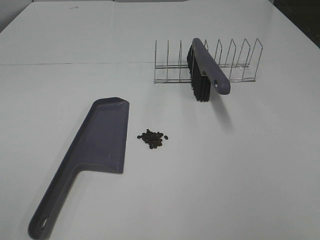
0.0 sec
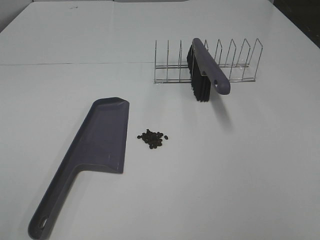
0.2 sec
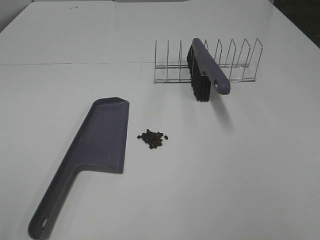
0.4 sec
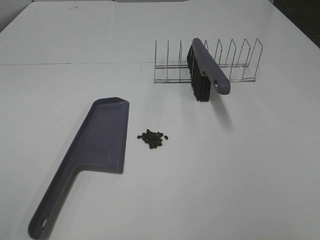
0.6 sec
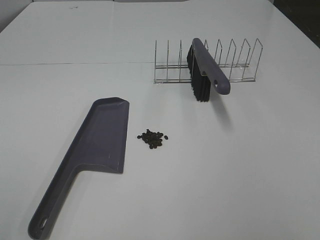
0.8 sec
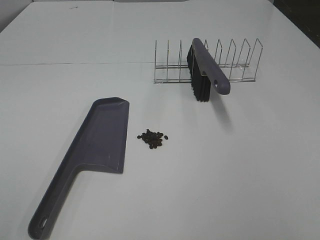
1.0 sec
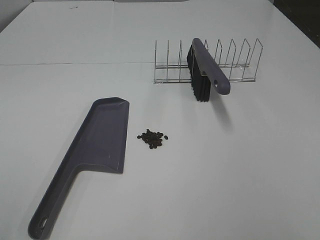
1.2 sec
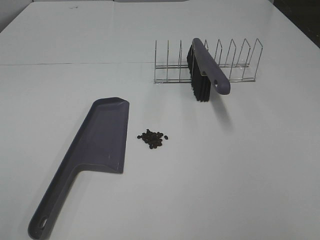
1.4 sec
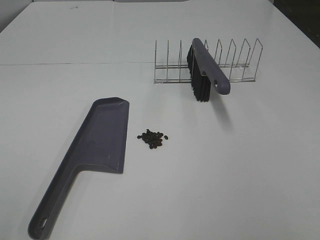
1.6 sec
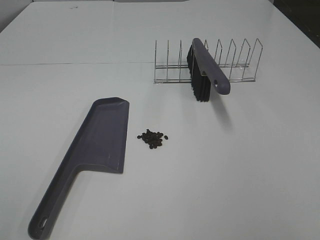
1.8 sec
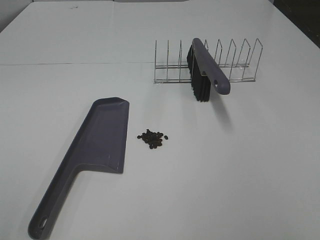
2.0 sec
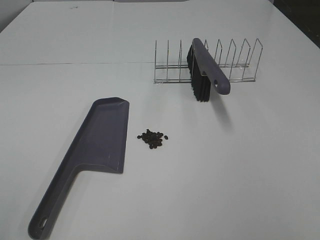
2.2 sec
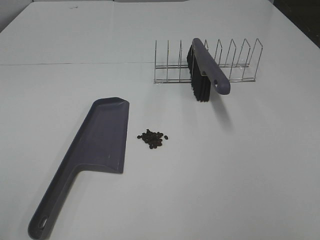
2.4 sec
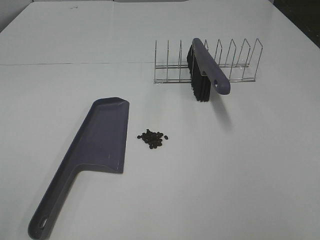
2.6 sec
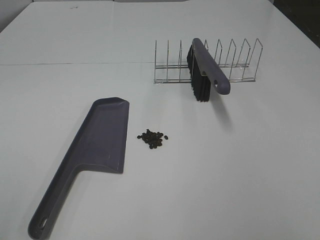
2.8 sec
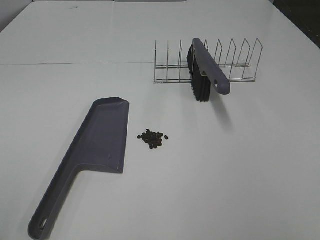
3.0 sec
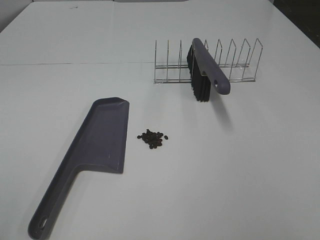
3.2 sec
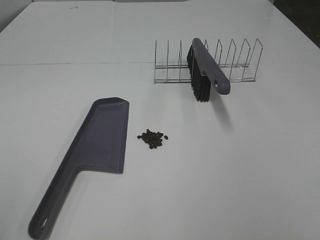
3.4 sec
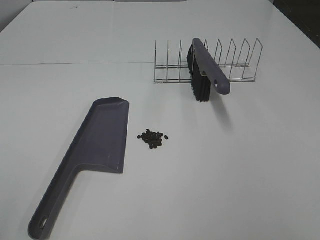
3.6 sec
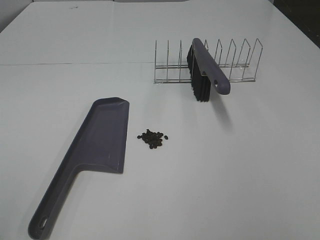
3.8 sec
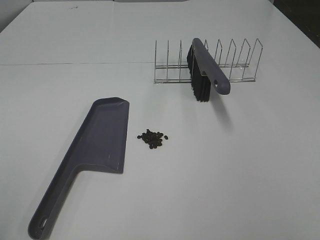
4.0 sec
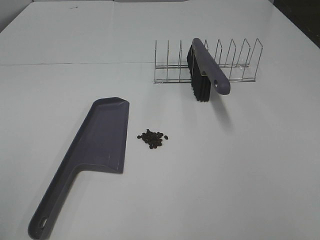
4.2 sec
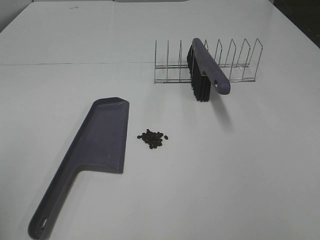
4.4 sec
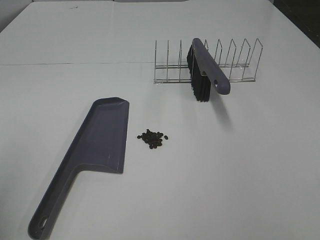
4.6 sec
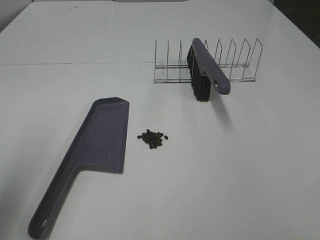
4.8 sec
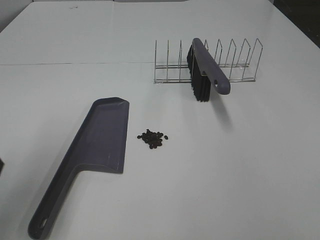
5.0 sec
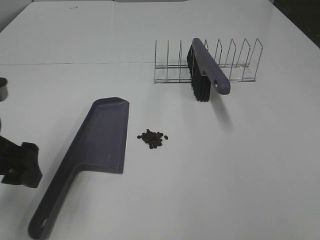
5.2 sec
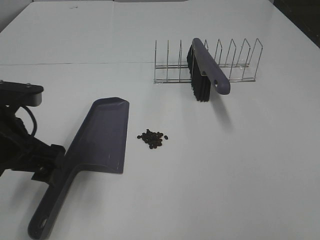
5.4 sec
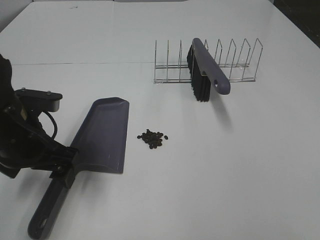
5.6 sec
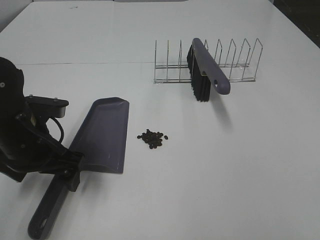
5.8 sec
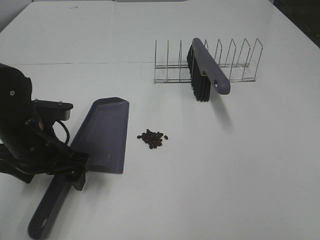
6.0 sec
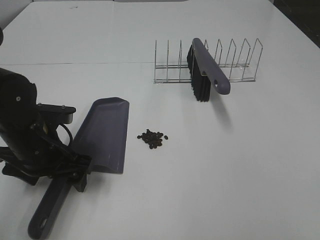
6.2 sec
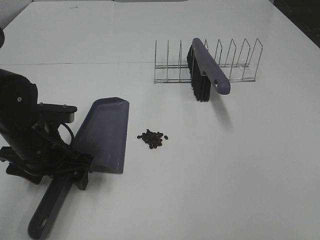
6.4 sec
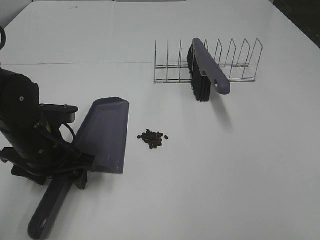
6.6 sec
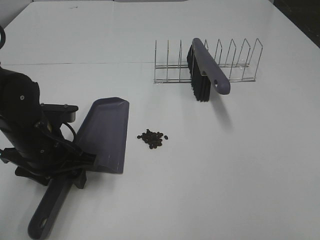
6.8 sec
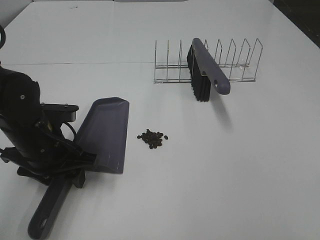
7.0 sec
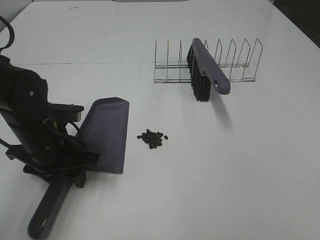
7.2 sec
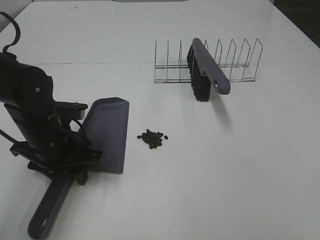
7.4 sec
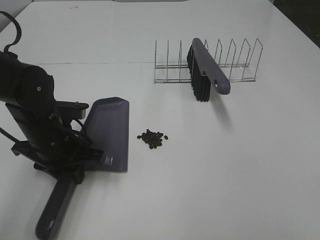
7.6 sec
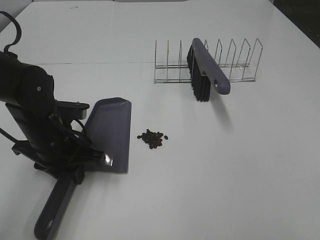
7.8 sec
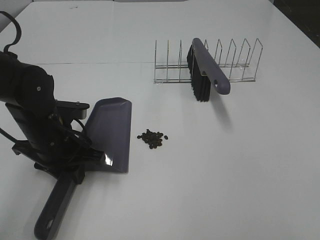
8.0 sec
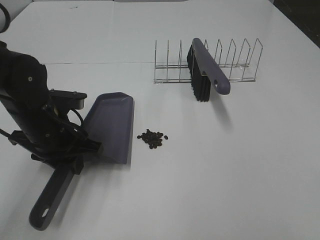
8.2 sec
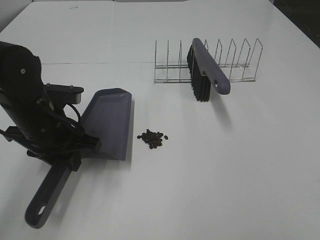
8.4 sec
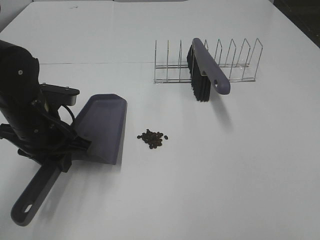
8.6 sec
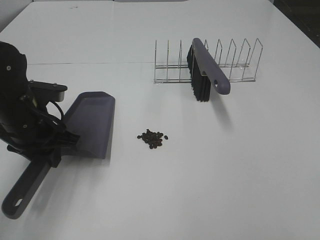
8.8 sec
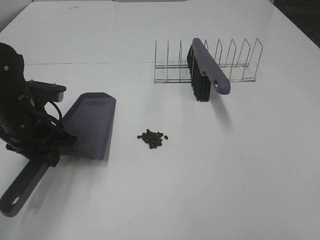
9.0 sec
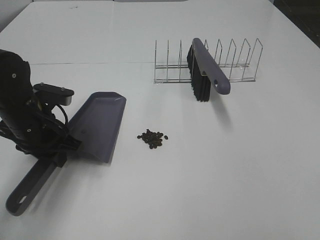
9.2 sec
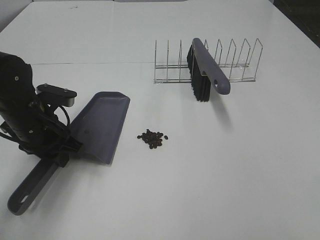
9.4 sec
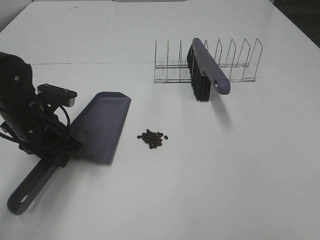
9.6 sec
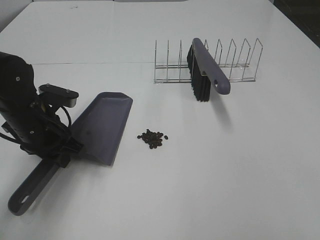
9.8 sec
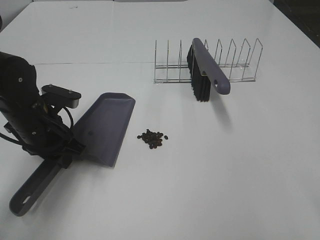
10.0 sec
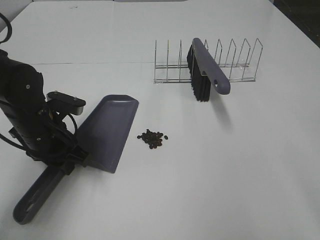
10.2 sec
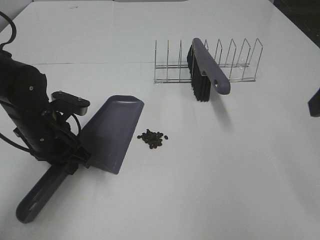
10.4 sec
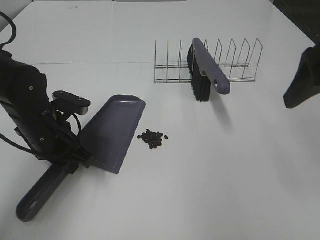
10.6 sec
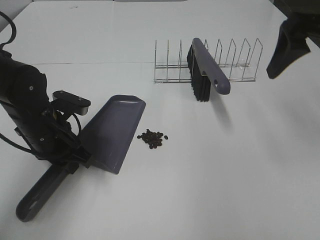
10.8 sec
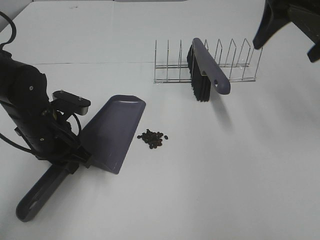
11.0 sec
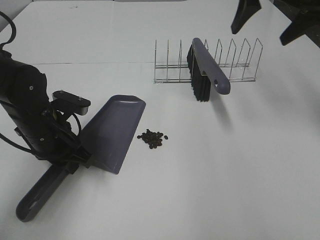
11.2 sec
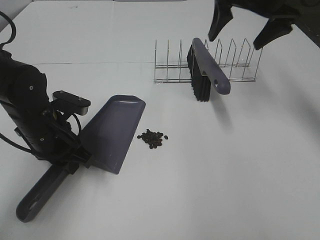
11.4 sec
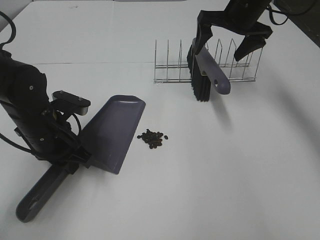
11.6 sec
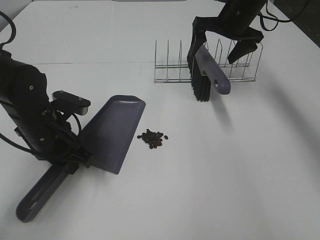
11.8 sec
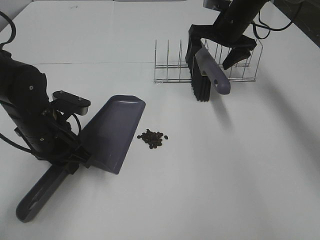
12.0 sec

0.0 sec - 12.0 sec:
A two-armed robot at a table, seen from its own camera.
Task of the whole recording: Sweep Coffee Bean.
Step, 0.0 sec - 7.6 sec: Left hand: grab the dustpan.
0.0 sec - 3.0 sec: Both grippers stay put.
4.4 sec - 6.0 sec: The left gripper moves downward, forward and to the right, roughly 30 cm.
6.0 sec - 7.6 sec: The left gripper closes its fingers.
7.6 sec - 9.0 sec: The grippers move only a little.
9.0 sec - 10.4 sec: The right gripper shifts some 20 cm forward, and opens its fingers.
10.4 sec - 12.0 sec: The right gripper heads forward, covering about 35 cm.

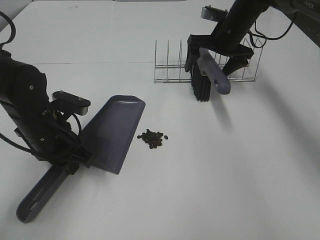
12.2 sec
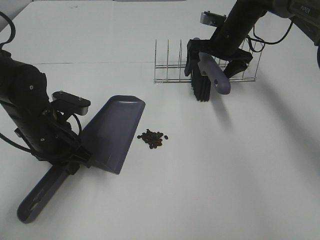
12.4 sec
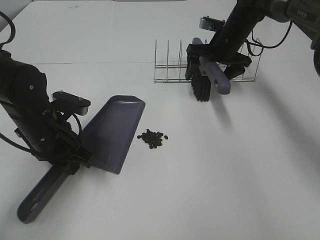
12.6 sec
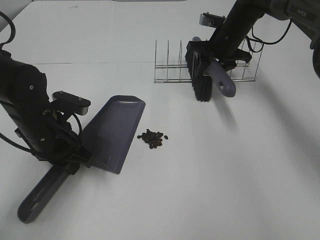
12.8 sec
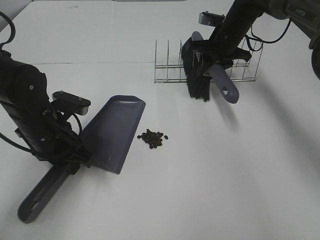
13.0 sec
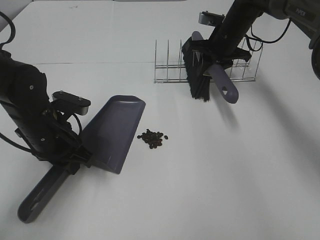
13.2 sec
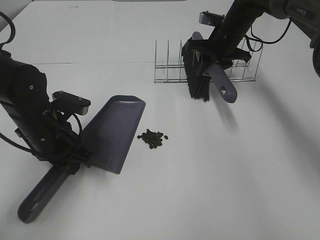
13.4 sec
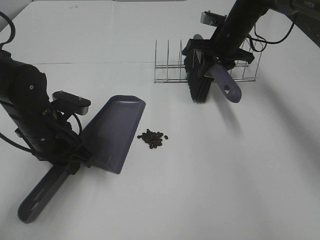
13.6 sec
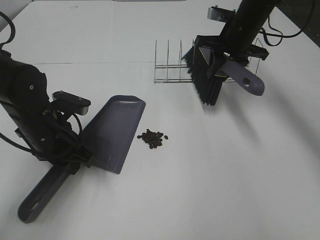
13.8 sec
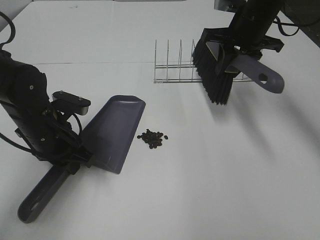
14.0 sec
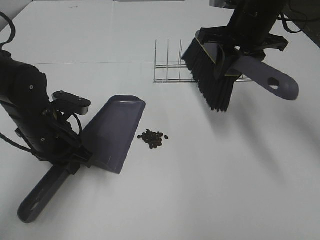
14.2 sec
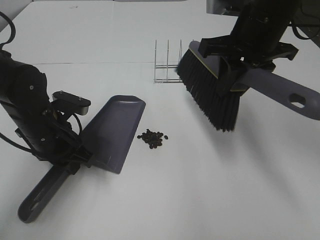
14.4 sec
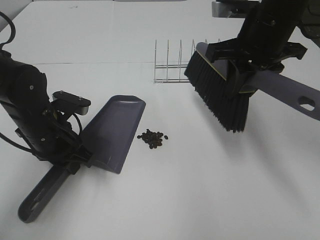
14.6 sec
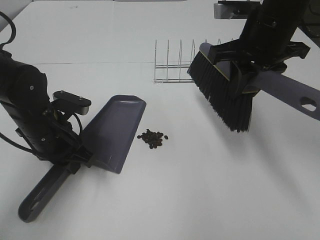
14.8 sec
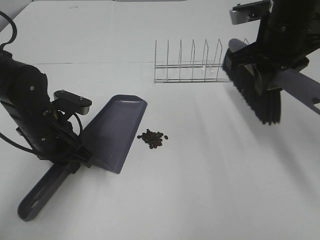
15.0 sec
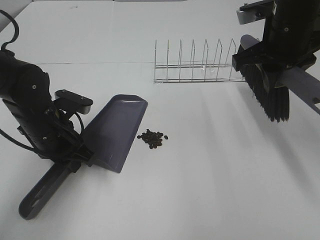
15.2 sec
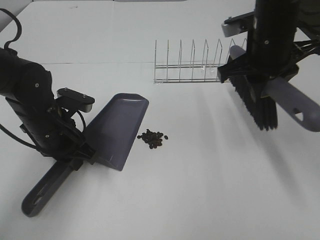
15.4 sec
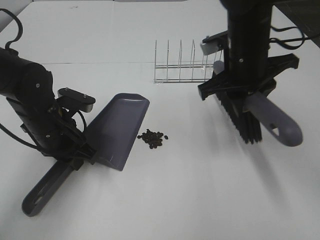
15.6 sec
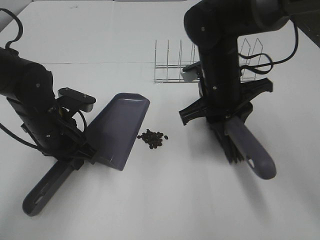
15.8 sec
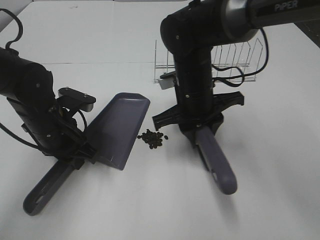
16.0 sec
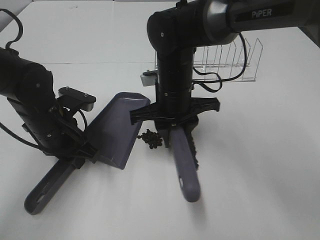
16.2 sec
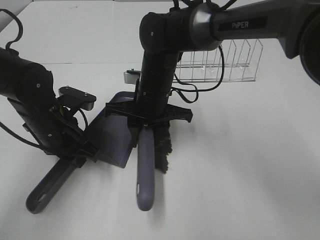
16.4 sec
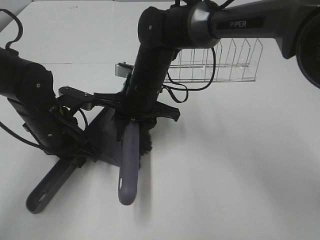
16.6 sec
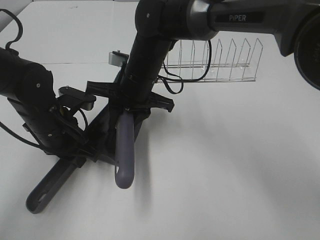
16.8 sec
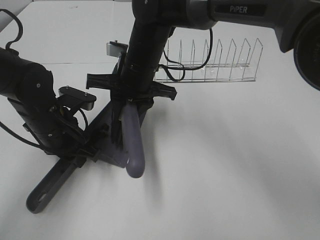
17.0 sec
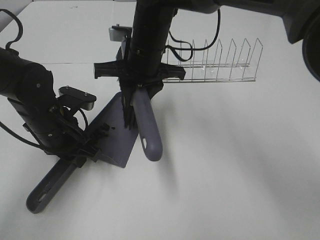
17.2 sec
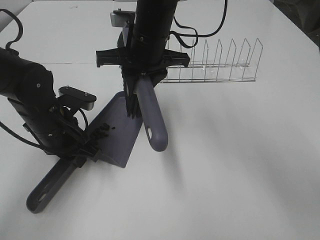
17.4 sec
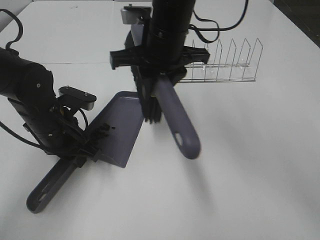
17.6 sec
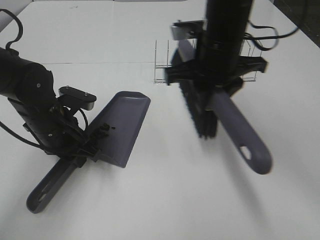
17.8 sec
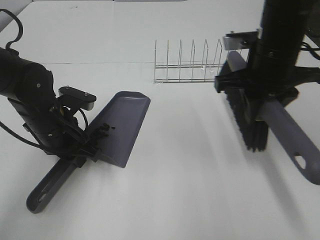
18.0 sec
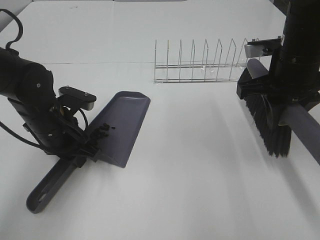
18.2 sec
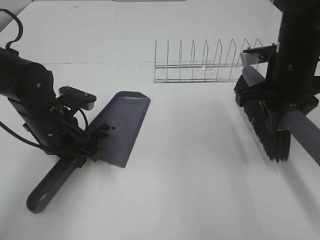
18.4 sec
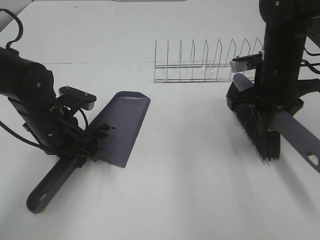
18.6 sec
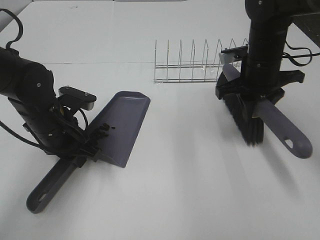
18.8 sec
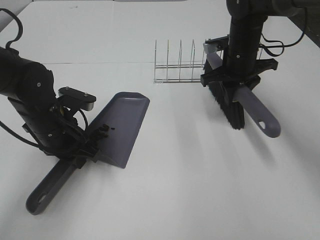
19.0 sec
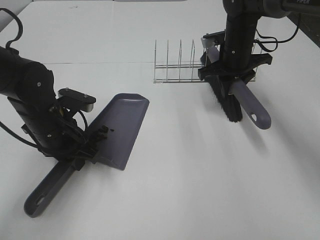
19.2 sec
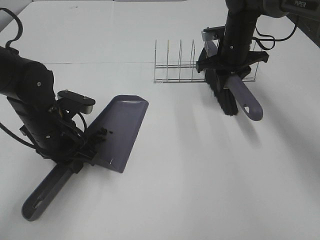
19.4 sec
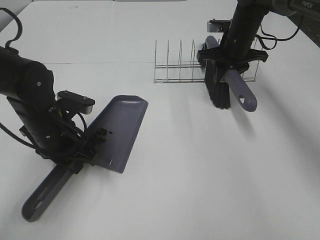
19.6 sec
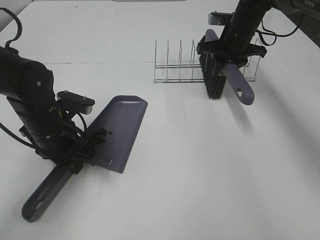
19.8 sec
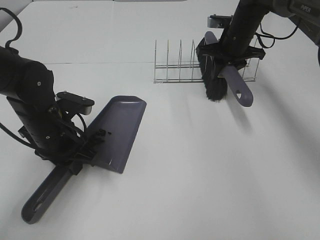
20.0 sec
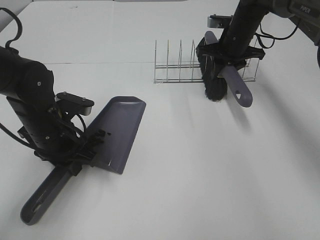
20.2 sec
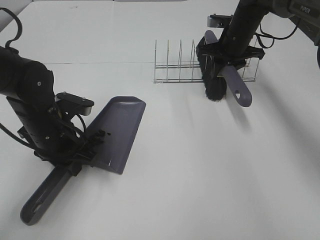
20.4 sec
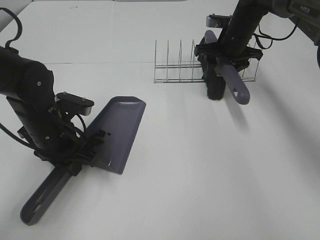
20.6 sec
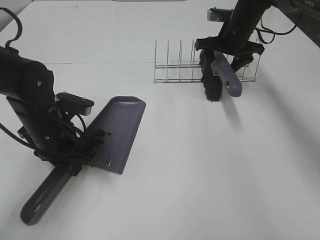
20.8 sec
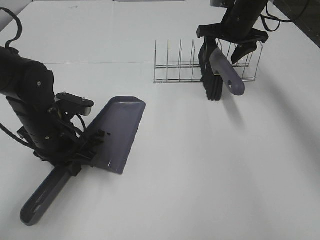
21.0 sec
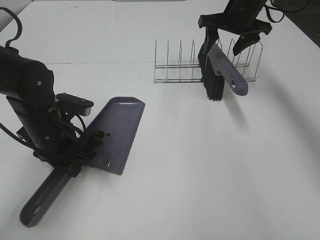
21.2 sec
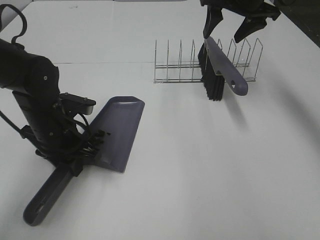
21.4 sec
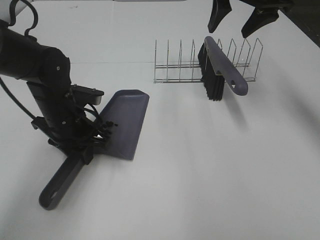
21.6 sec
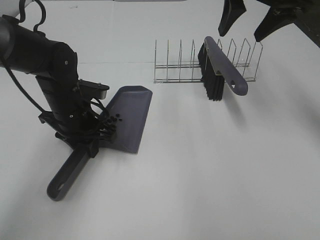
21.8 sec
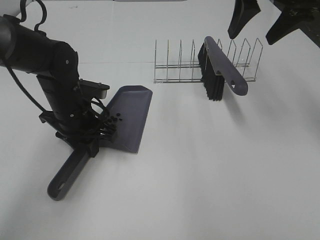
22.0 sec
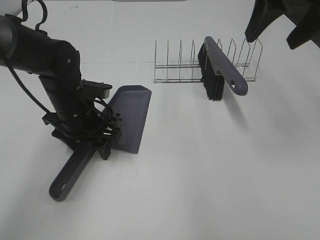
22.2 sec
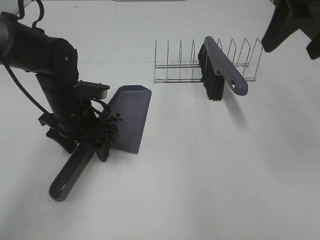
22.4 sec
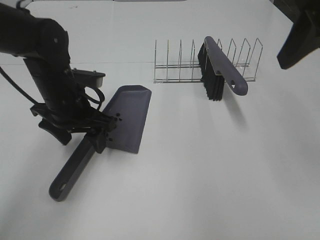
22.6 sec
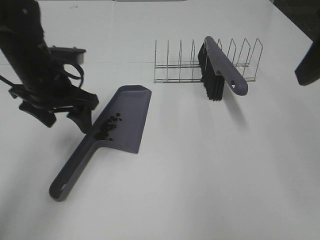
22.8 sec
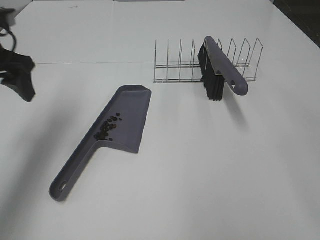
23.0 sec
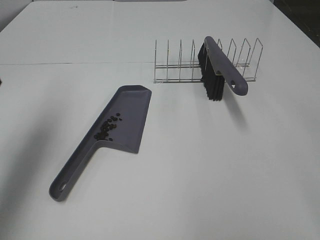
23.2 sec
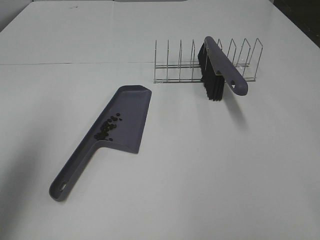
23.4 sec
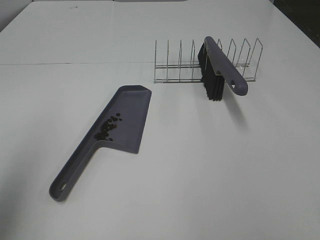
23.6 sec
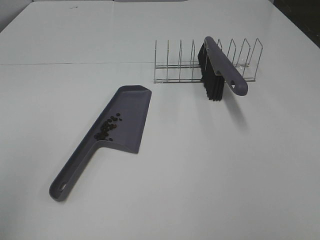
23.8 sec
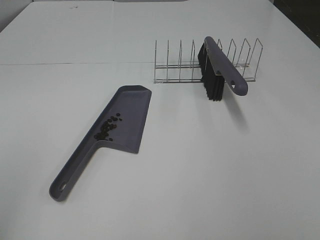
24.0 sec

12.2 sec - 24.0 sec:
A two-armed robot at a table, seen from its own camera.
Task of the whole recording: Sweep Coffee Bean.
Step, 13.0 sec - 17.0 sec: Right hand:sweep the coffee beans into the dustpan.
Step, 17.2 sec - 20.6 sec: Right hand:place the broom on the rack.
Step, 20.8 sec - 22.2 sec: Left hand:place the dustpan on the table.
12.2 sec - 13.6 sec: The right gripper closes its fingers.
13.6 sec - 15.2 sec: The right gripper shifts approximately 20 cm backward and upward.
15.2 sec - 16.6 sec: The right gripper heads to the left and downward, covering roughly 25 cm.
16.6 sec - 18.2 sec: The right gripper shifts some 20 cm to the right.
18.2 sec - 19.6 sec: The right gripper travels forward by approximately 20 cm.
19.6 sec - 21.0 sec: The right gripper opens.
21.0 sec - 22.6 sec: The left gripper shifts roughly 5 cm upward, and opens. Meanwhile the right gripper travels backward and upward by approximately 30 cm.
22.6 sec - 24.0 sec: The right gripper travels backward by roughly 25 cm. Meanwhile the left gripper heads backward, upward and to the left, covering approximately 40 cm.
